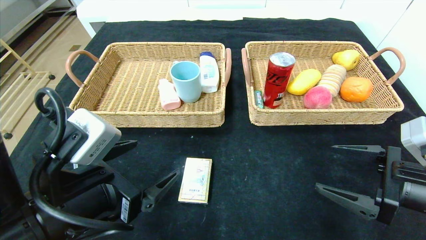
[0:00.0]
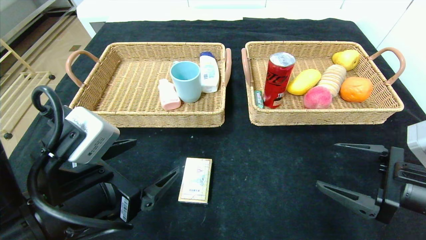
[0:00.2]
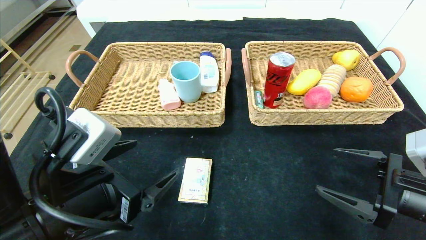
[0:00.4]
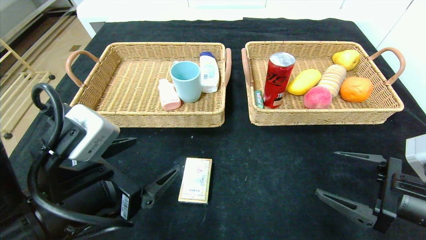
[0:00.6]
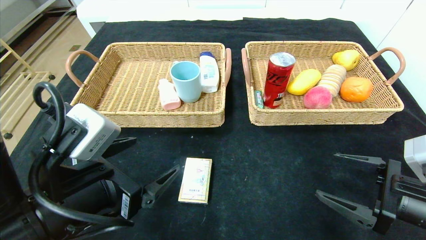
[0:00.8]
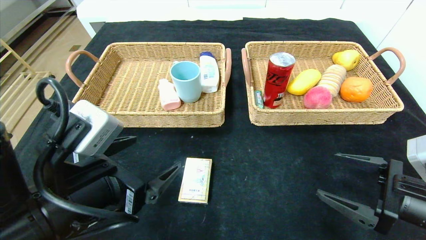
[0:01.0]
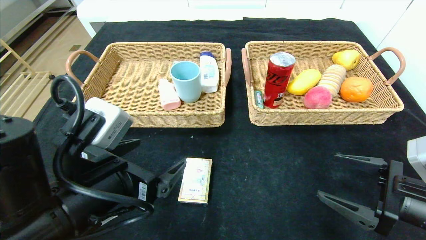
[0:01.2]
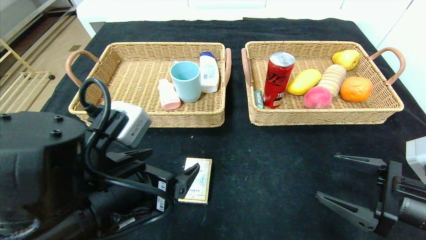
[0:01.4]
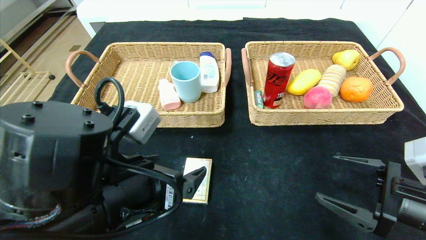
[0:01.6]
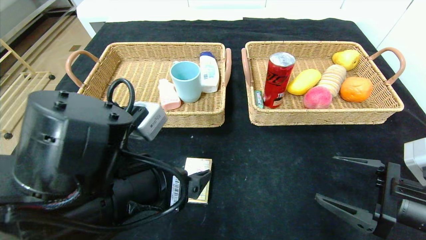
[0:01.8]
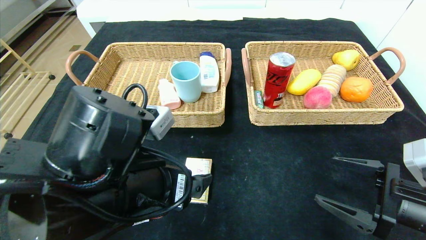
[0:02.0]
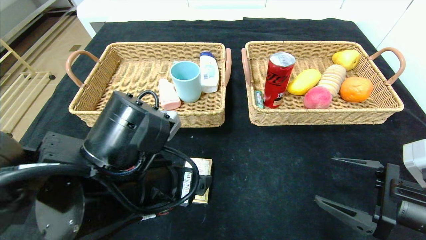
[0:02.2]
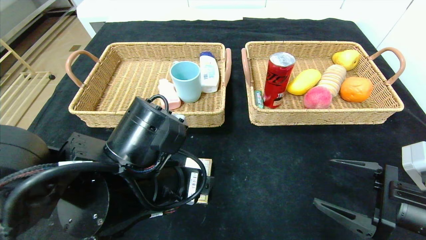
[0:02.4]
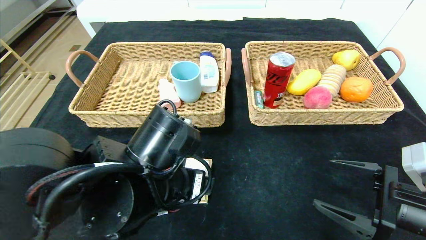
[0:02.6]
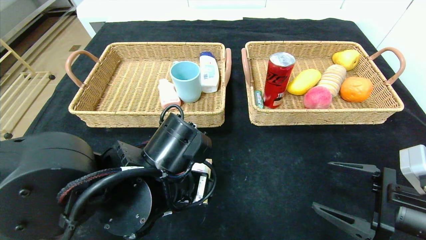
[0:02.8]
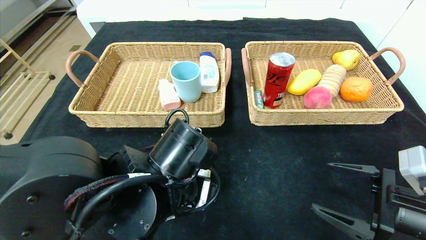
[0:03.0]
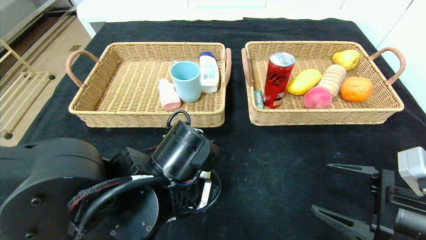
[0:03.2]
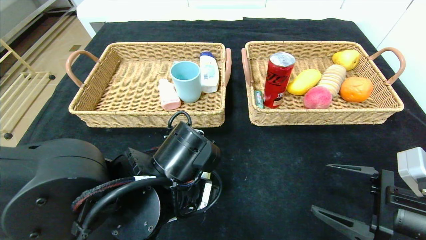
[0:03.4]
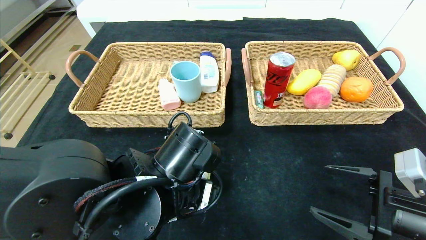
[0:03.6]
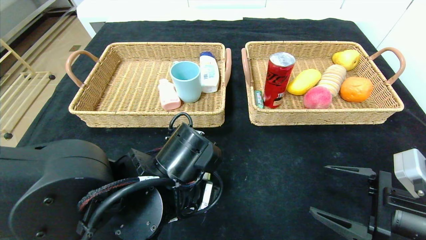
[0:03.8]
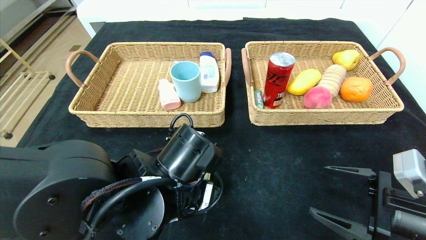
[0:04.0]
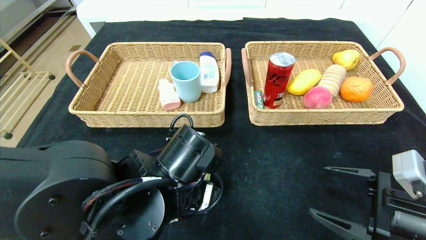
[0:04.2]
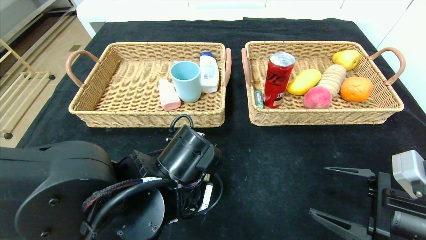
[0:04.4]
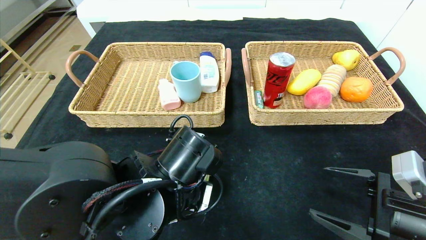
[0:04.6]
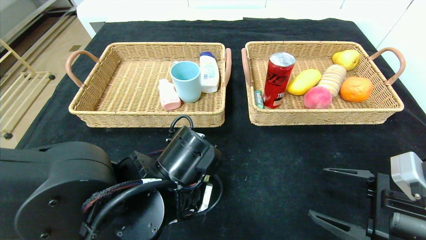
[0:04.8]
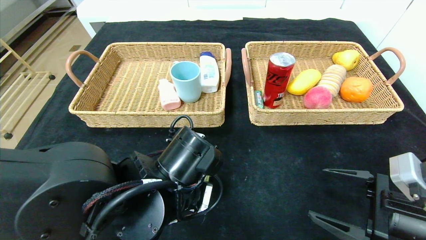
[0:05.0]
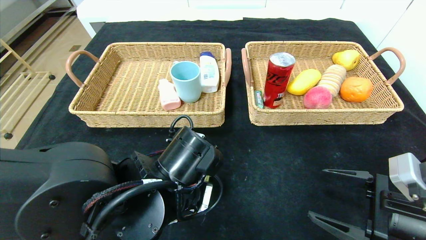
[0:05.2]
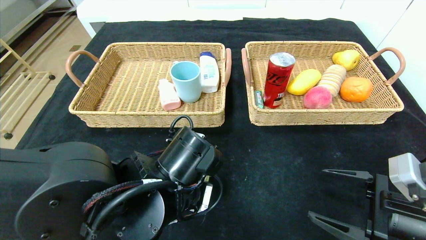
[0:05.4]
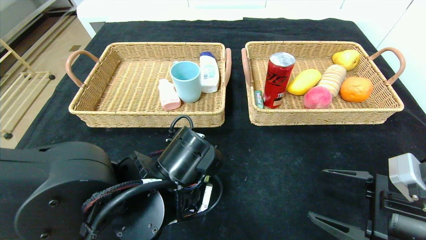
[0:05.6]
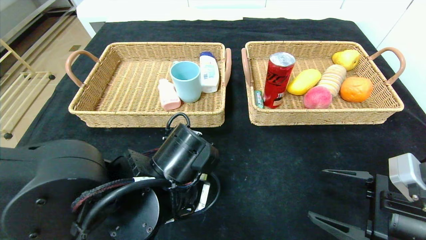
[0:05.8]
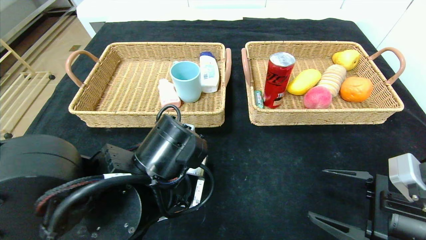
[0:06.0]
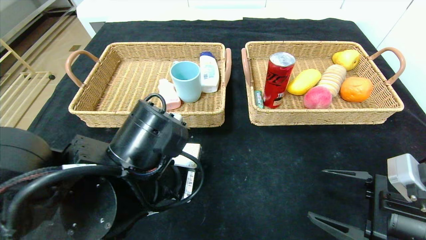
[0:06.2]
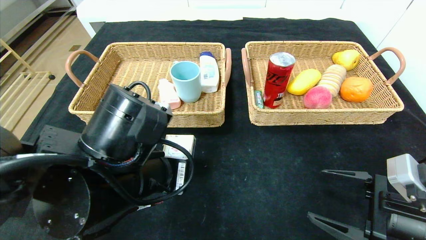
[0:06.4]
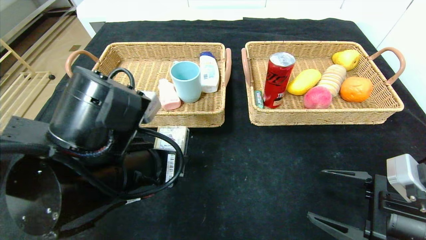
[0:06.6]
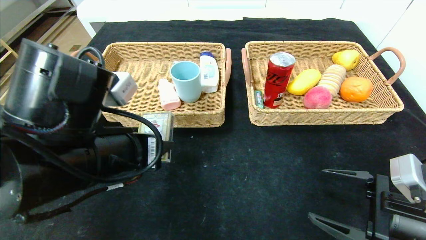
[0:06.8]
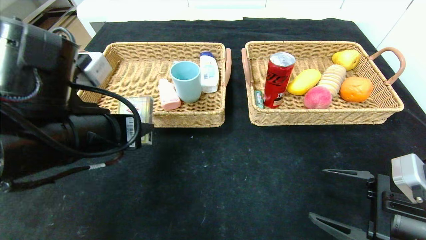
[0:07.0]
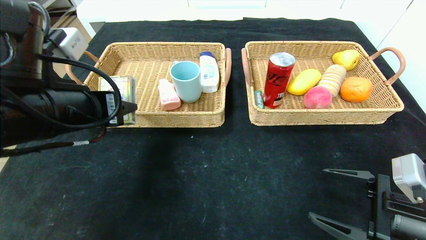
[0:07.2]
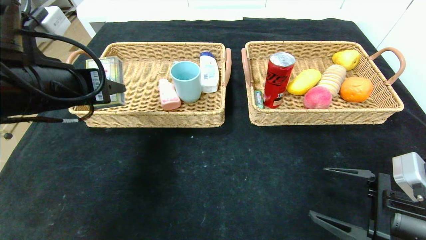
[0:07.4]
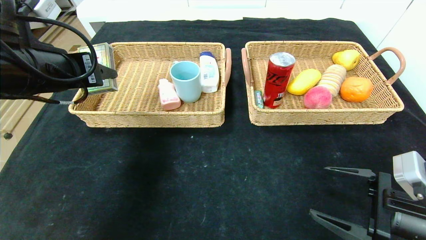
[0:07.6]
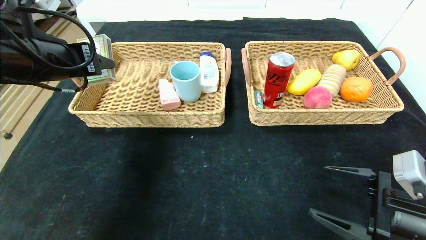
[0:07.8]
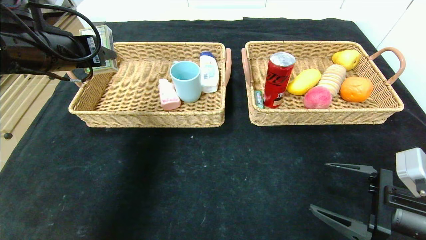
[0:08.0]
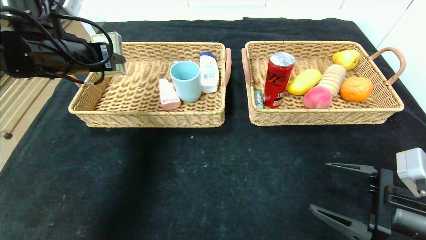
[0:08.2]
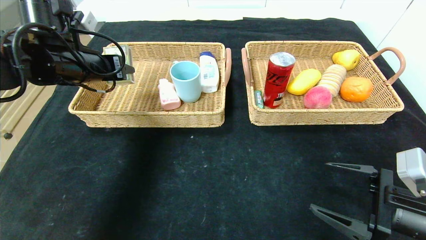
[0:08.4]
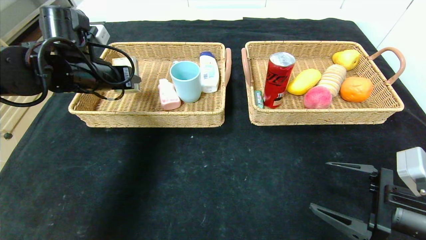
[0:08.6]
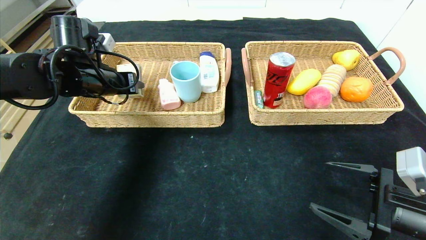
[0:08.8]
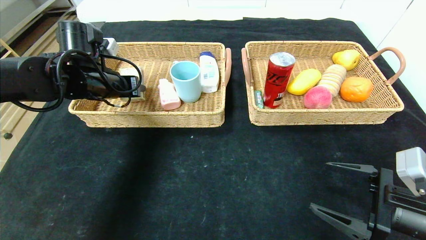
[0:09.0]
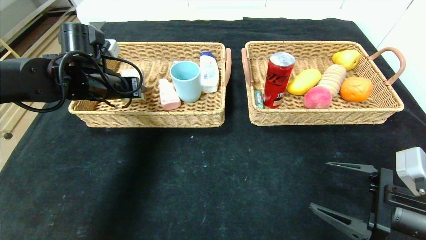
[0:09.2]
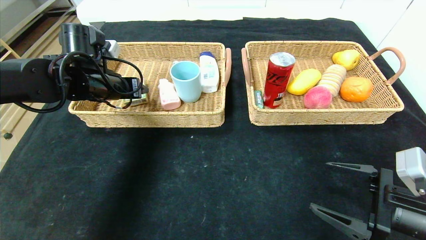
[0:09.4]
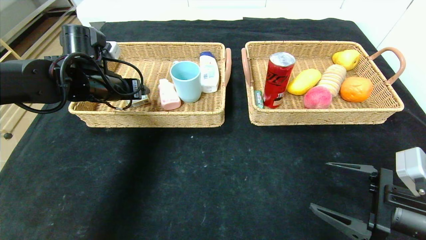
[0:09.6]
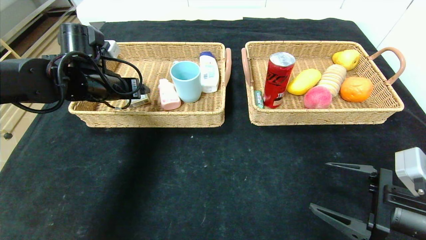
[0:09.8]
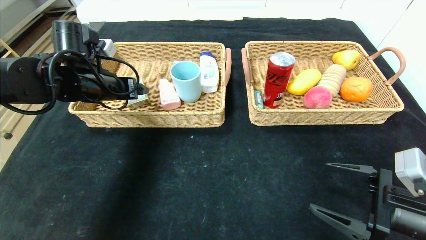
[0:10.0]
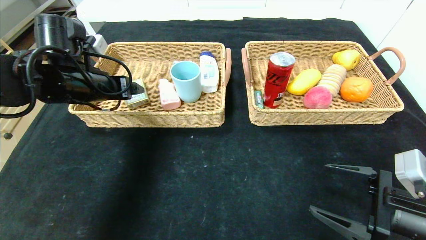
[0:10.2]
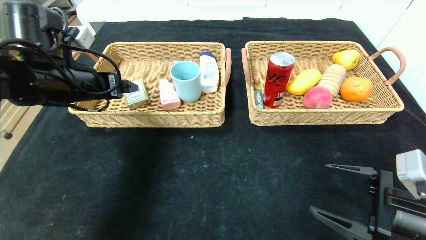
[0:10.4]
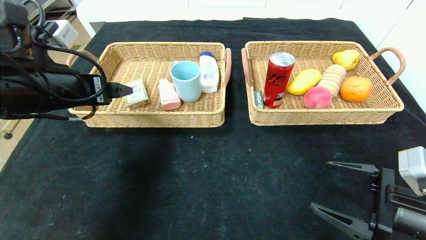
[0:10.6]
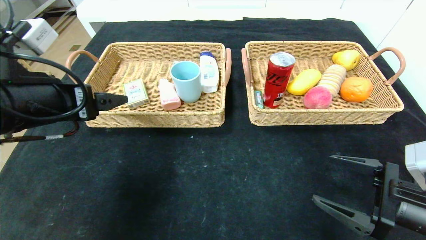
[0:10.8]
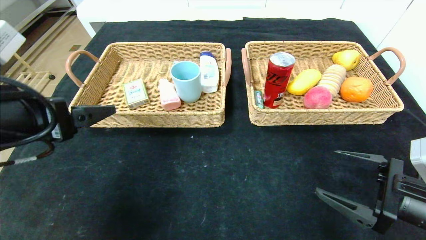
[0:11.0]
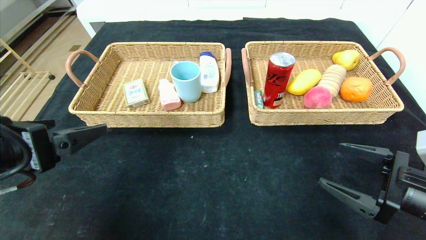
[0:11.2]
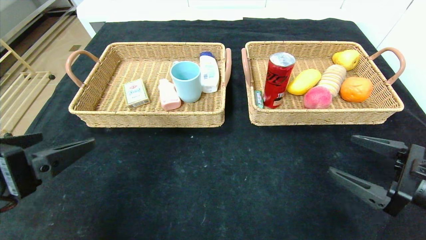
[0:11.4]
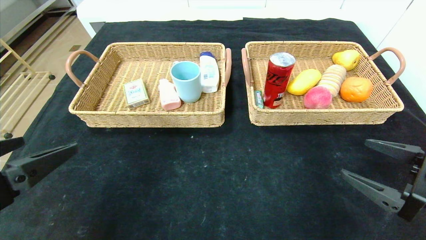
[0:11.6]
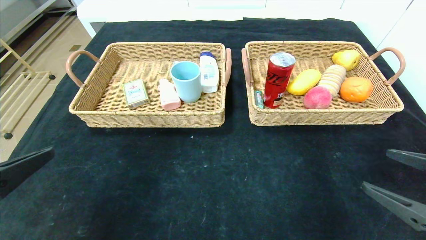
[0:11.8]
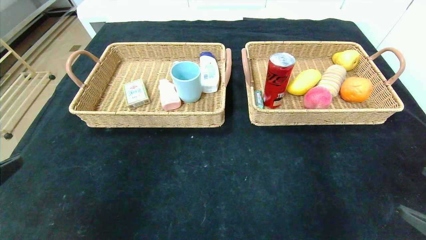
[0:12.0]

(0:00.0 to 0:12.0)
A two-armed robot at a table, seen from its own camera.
Step, 0:00.0 - 0:09.6: Grasp the playing cards and put it in the left basket.
0:00.0 - 0:01.6: The left gripper heads to the right, covering some 5 cm.
0:01.6 - 0:03.0: The left gripper moves roughly 5 cm.
0:03.0 - 0:04.4: The left gripper closes up.
0:04.4 - 0:06.0: The grippers stay close to where they were, moving slightly.
0:06.0 - 0:07.6: The left gripper shifts about 20 cm to the left, upward and forward.
0:07.6 - 0:09.0: The left gripper travels forward and downward by about 15 cm.
0:09.0 - 0:10.4: The left gripper shifts roughly 10 cm backward, and opens up.
0:10.4 - 0:12.0: The left gripper heads backward, covering about 25 cm. Meanwhile the right gripper travels backward, to the right and upward by about 15 cm.

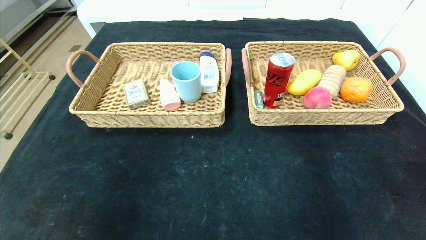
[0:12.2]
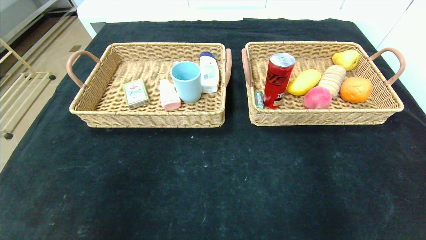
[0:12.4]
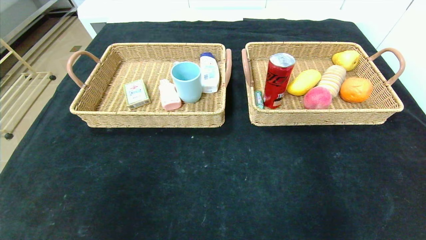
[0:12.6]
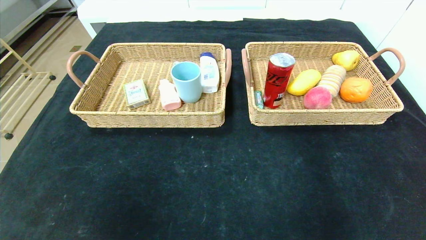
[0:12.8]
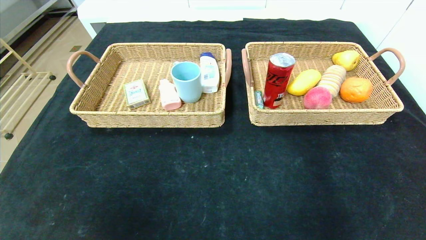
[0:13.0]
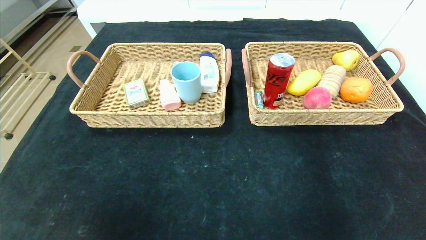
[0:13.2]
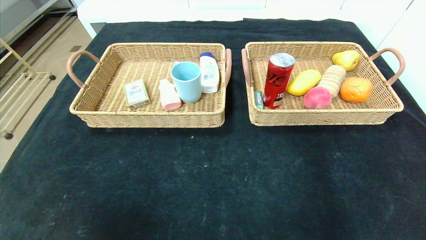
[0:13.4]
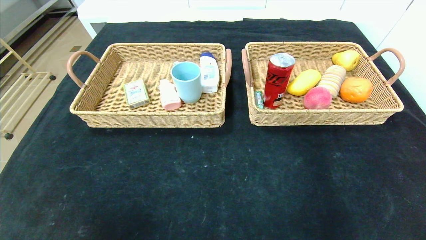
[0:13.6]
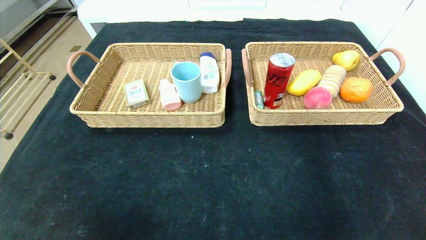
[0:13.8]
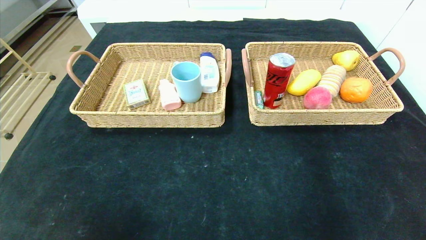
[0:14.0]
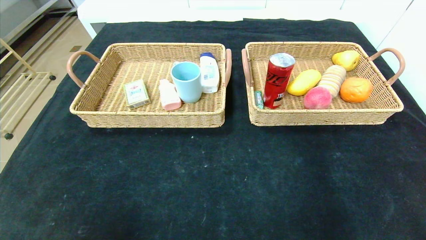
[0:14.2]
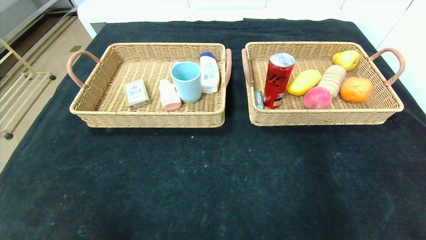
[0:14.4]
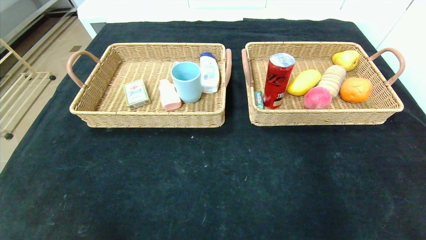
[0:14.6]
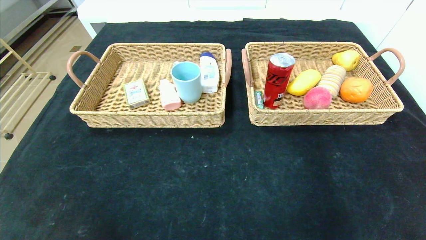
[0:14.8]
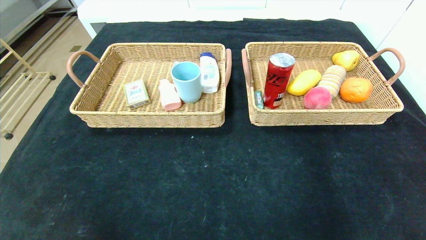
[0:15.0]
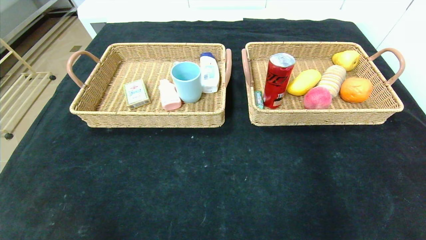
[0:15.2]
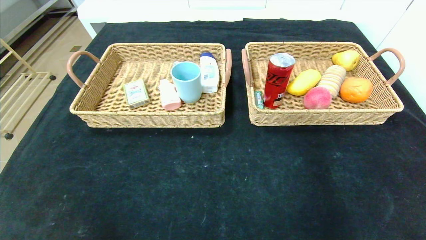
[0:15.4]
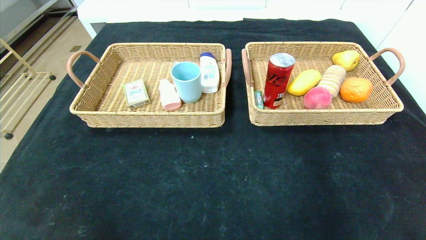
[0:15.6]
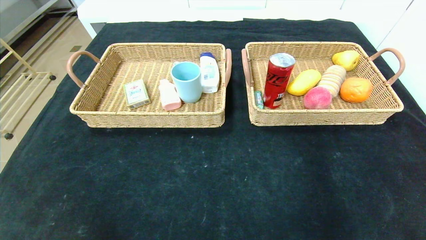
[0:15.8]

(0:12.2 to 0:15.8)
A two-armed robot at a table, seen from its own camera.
0:12.2 - 0:14.0: The left gripper heads downward and backward, covering approximately 15 cm.
